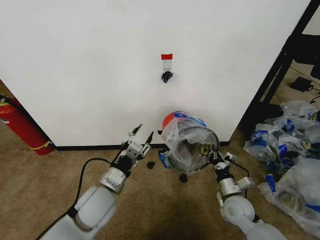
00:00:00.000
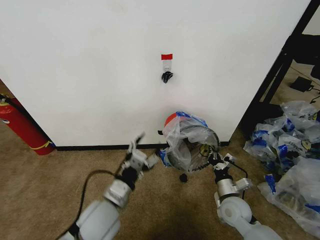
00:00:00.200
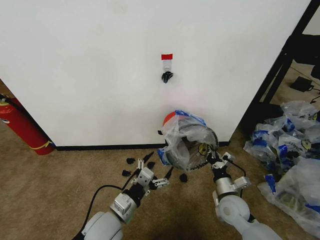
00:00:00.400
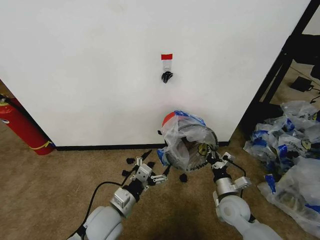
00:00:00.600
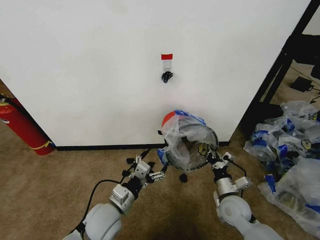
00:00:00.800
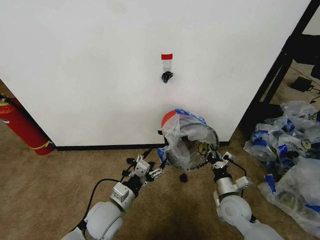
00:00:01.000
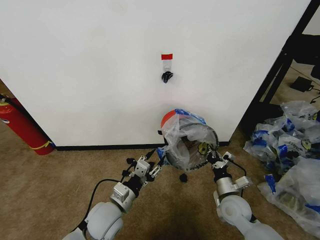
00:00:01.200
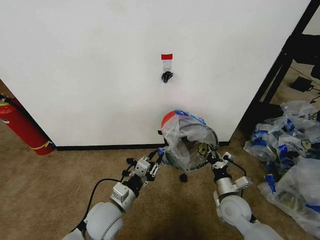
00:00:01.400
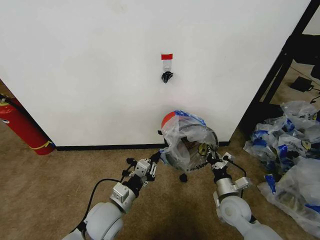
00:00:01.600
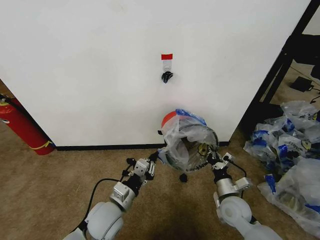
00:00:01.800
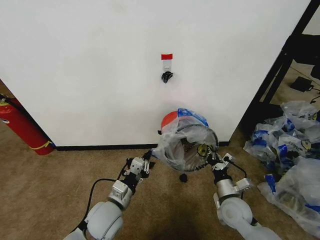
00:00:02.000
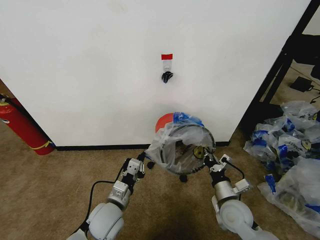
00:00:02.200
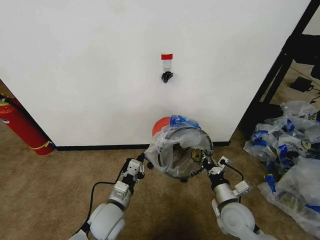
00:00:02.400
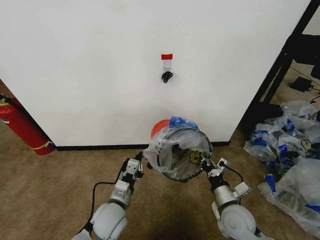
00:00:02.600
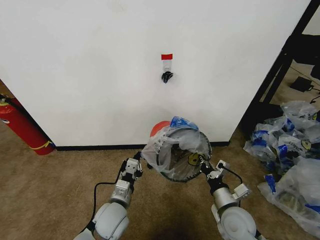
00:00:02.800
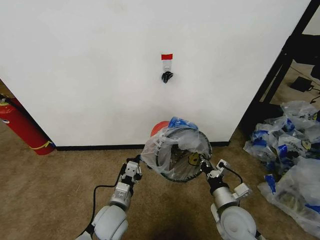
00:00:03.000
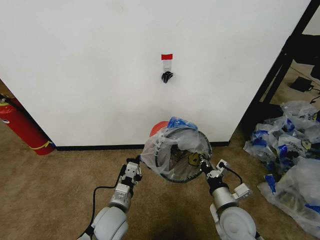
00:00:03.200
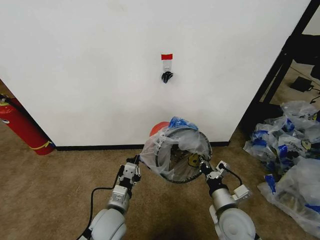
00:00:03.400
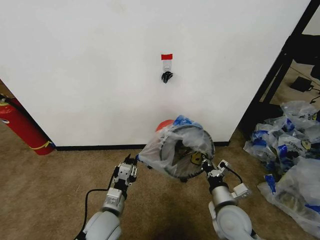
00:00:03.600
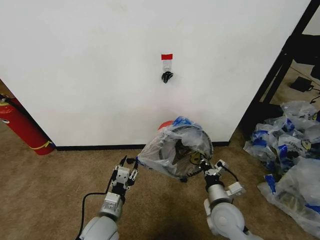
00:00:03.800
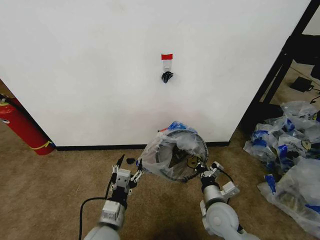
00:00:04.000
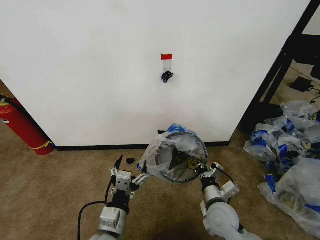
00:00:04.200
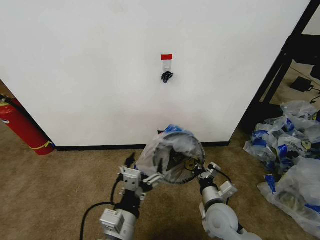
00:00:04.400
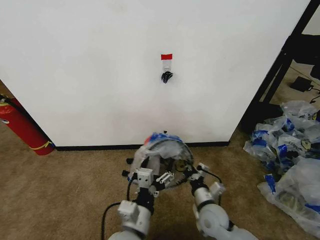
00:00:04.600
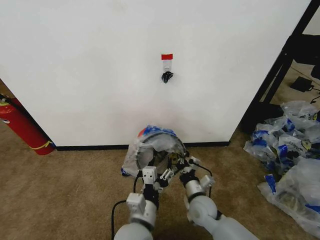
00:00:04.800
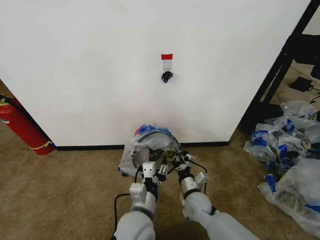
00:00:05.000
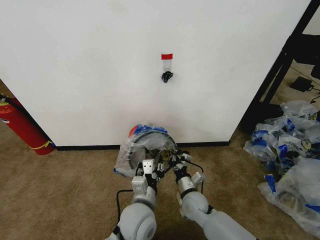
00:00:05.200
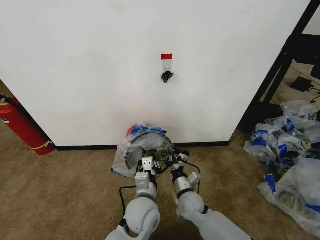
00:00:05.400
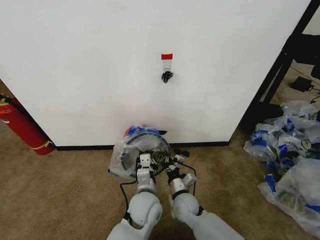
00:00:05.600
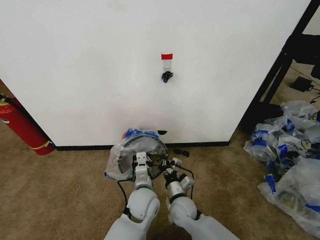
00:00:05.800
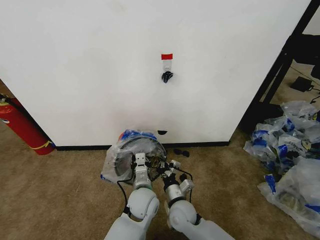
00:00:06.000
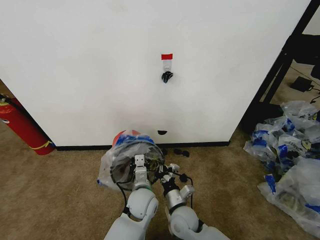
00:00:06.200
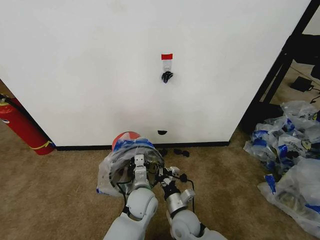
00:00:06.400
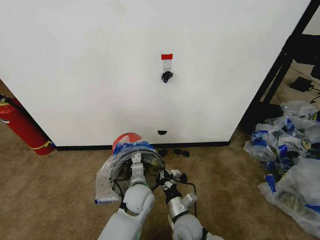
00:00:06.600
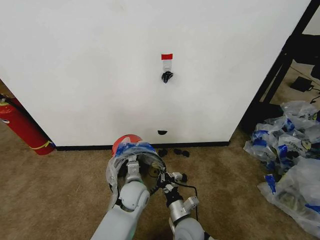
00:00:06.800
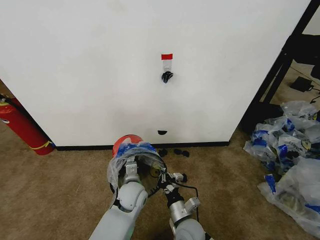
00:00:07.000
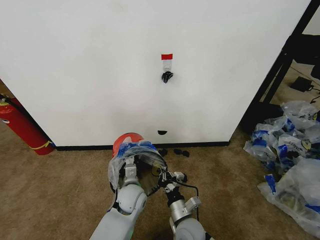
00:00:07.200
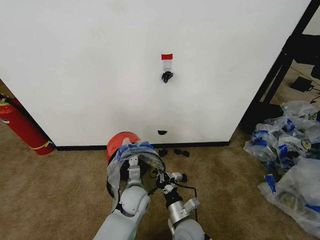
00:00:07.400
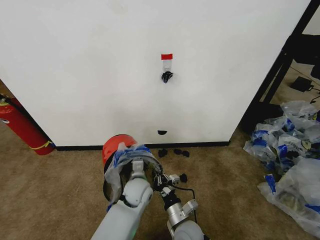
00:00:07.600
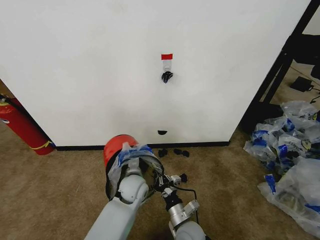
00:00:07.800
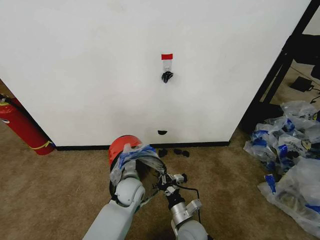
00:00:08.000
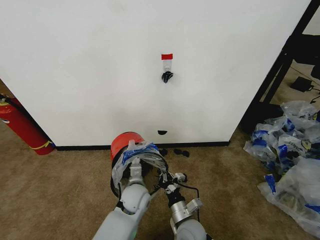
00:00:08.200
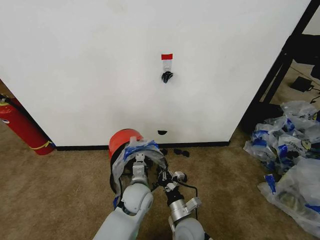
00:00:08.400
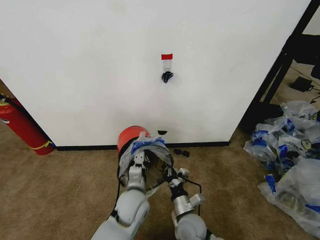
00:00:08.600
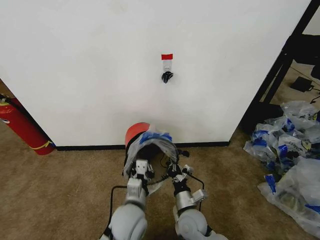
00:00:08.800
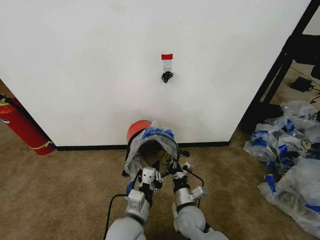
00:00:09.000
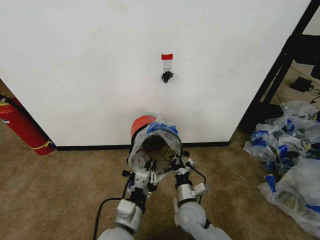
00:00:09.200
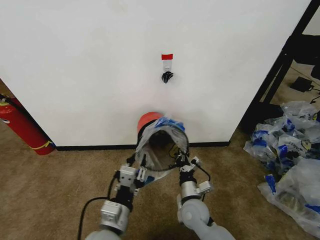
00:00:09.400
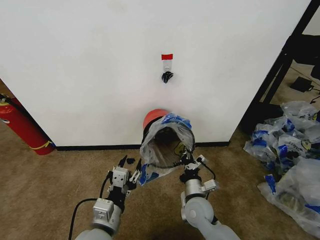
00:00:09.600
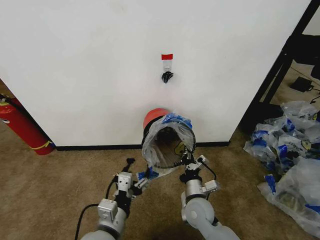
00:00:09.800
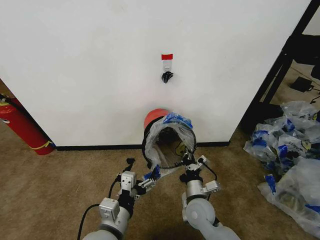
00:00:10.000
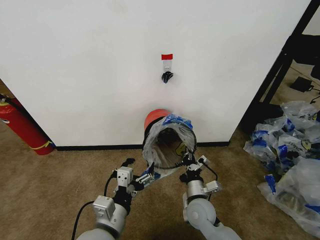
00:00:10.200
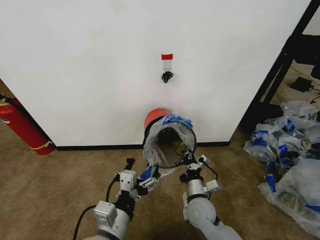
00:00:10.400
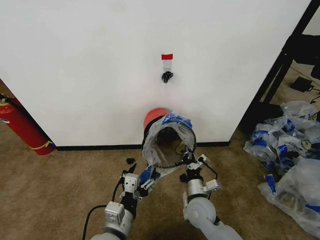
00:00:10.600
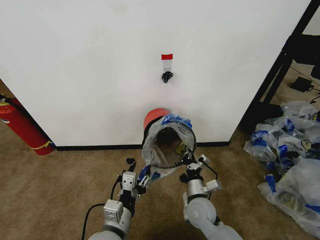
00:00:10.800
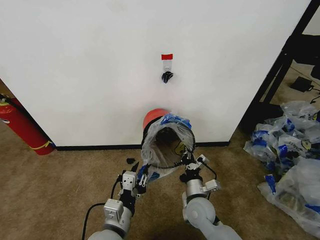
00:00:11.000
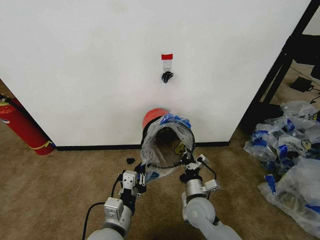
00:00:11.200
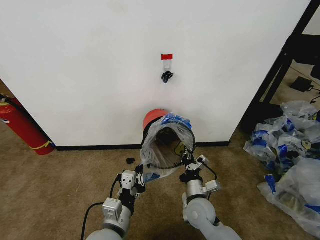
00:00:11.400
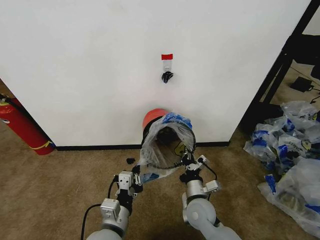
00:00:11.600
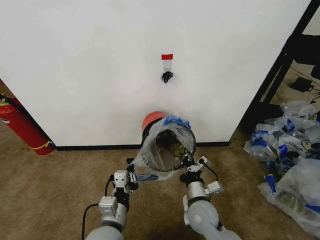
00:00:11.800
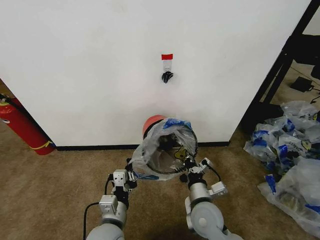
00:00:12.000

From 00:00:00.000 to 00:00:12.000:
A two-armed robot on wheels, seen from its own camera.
Task of the whole recording: Pick up the garbage bag from the wall and place it over the trash bin.
From 00:00:00.000 to 00:00:01.600: The left gripper goes approximately 5 cm downward, and closes.
From 00:00:01.600 to 00:00:03.000: The right gripper shifts by approximately 5 cm.
From 00:00:03.000 to 00:00:04.400: The left gripper moves backward and upward, about 15 cm, and opens its fingers.
From 00:00:04.400 to 00:00:06.000: The left gripper heads forward and downward, covering roughly 20 cm, and closes. The right gripper is displaced to the left by approximately 10 cm.
From 00:00:06.000 to 00:00:07.600: The right gripper is displaced backward by some 5 cm.
From 00:00:07.600 to 00:00:09.000: The left gripper is displaced backward and upward by roughly 15 cm.
From 00:00:09.000 to 00:00:10.400: The left gripper travels upward and backward by about 10 cm, and opens.
From 00:00:10.400 to 00:00:12.000: The right gripper shifts roughly 5 cm upward. The left gripper shifts approximately 5 cm downward, and closes its fingers.

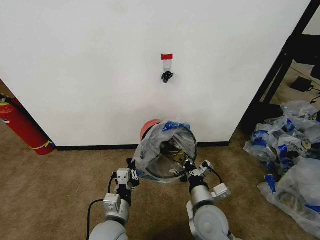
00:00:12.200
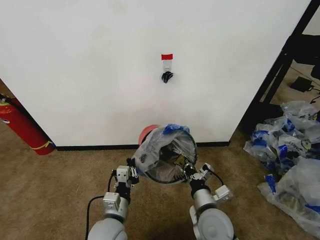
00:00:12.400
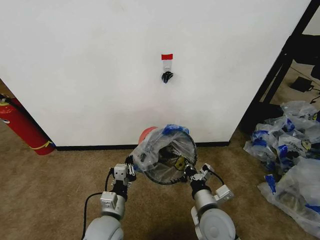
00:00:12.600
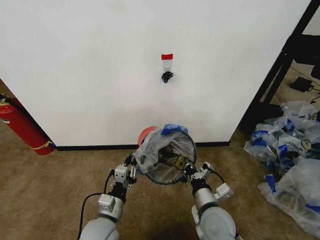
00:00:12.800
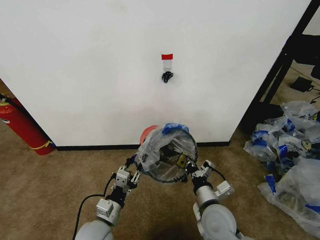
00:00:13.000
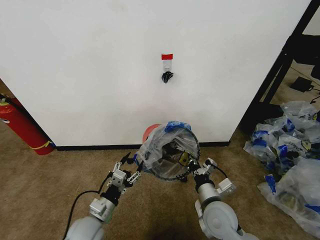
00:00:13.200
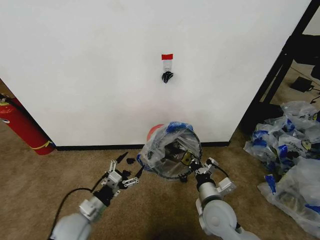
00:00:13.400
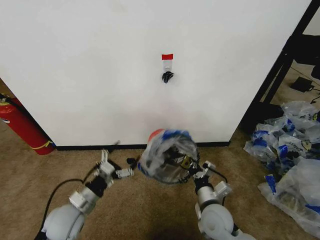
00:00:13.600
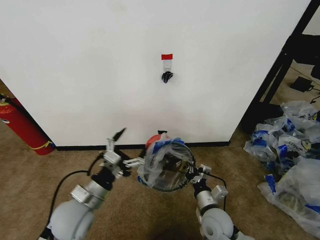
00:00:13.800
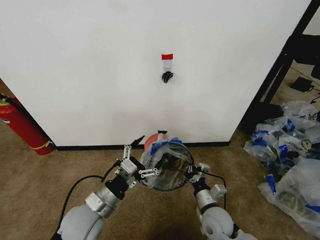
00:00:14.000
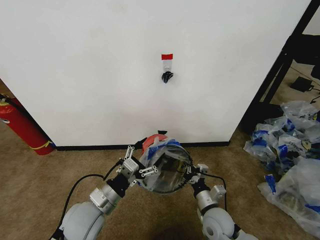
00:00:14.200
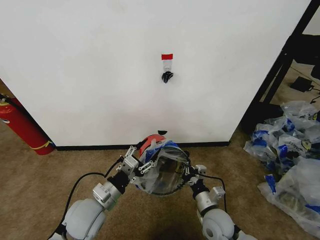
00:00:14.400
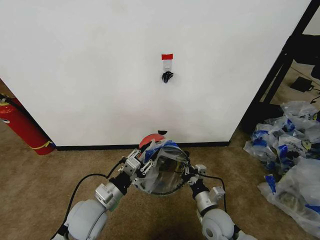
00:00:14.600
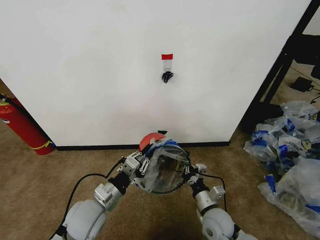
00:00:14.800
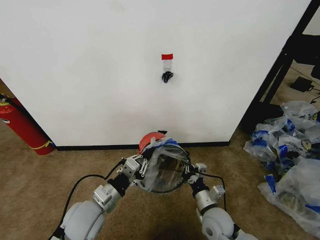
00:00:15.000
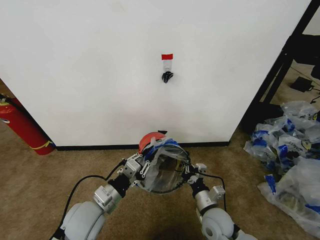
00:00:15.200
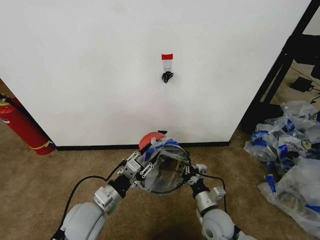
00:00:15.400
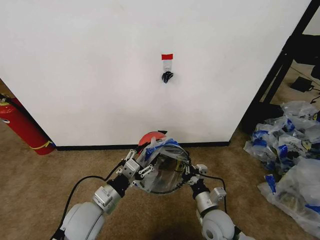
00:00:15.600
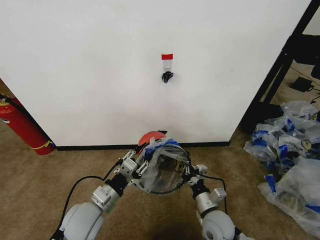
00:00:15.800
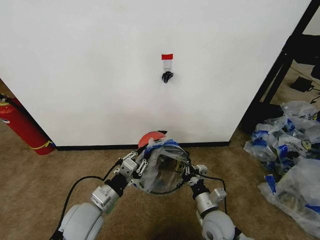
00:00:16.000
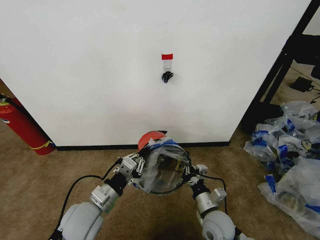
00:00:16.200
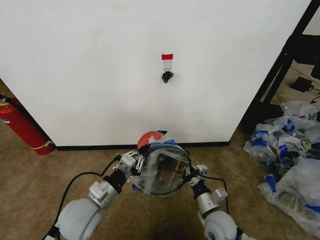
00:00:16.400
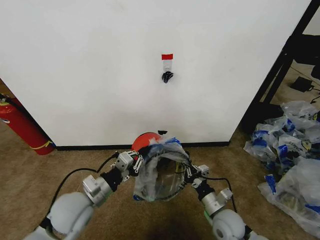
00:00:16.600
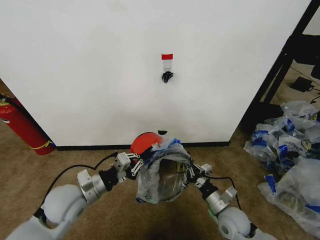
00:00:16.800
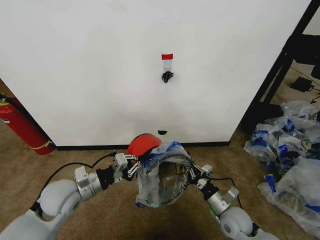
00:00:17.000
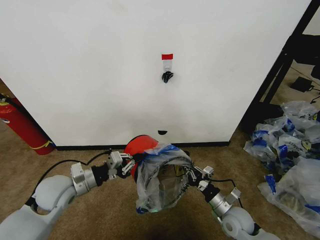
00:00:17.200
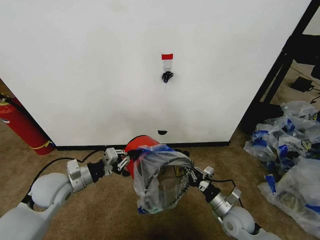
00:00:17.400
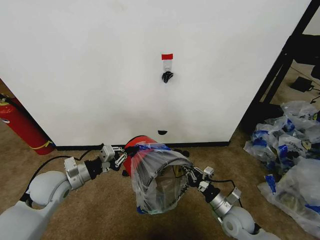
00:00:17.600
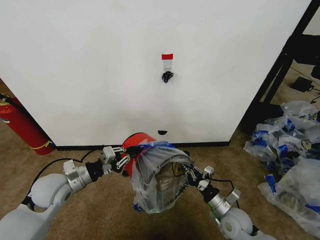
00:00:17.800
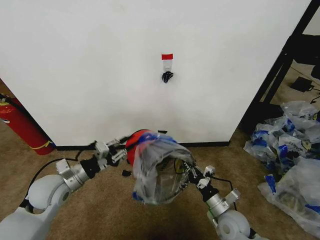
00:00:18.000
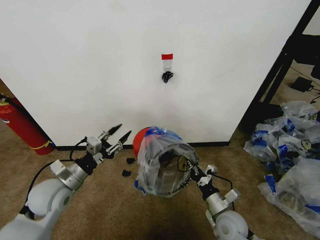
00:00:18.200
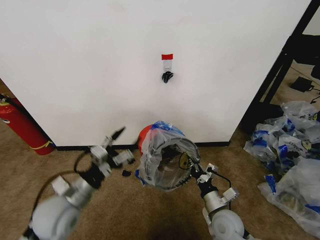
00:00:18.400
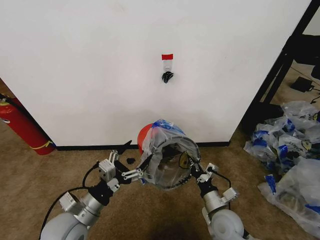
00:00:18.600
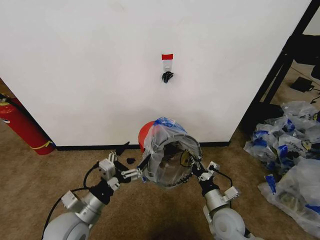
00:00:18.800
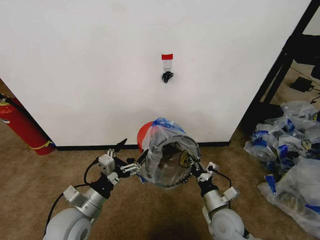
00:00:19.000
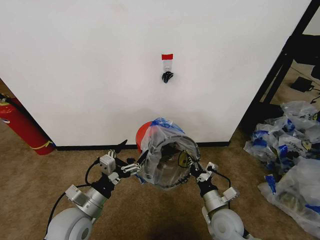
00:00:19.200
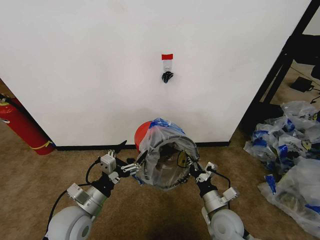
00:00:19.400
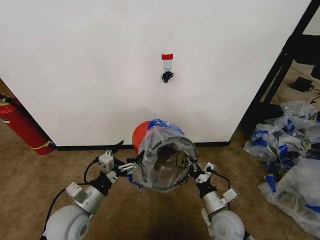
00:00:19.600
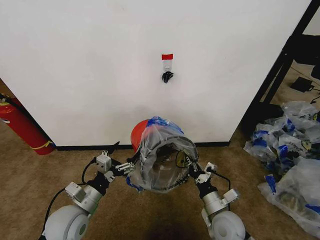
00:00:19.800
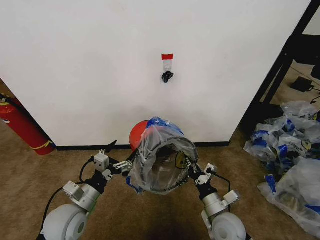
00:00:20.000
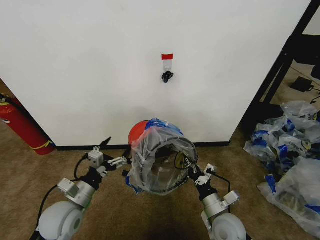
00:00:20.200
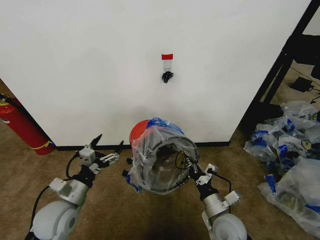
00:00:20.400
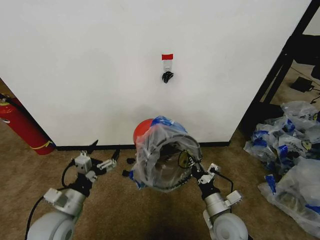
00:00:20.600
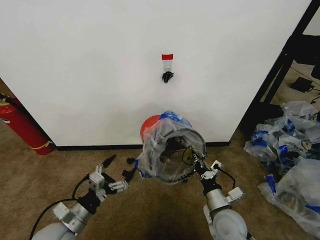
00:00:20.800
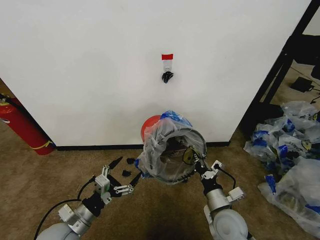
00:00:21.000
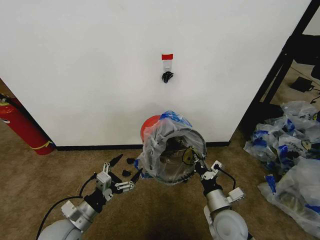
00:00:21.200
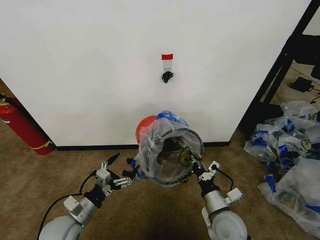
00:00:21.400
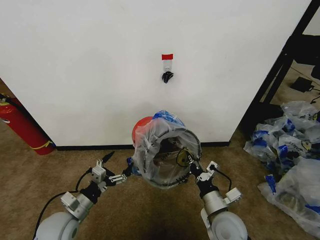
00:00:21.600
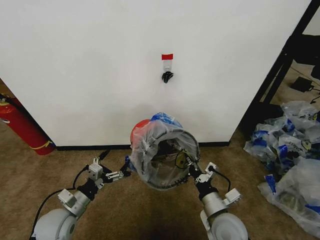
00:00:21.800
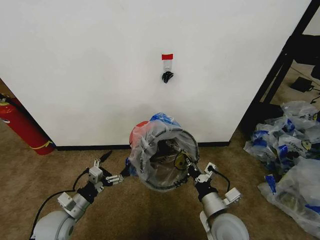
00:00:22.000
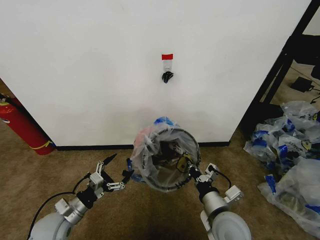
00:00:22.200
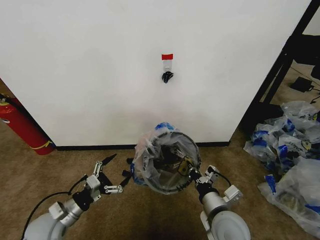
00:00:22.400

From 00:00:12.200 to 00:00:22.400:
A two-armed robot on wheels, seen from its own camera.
Task of the whole recording: Pick up the garbage bag from the wall and place it over the trash bin.
From 00:00:12.200 to 00:00:13.600: The right gripper changes place by approximately 5 cm. The left gripper shifts approximately 15 cm to the left, and opens up.
From 00:00:13.600 to 00:00:15.200: The left gripper goes some 5 cm to the right, and closes its fingers.
From 00:00:15.200 to 00:00:16.600: The left gripper opens, then closes once more.
From 00:00:16.600 to 00:00:18.000: The left gripper travels to the left and forward by approximately 10 cm.
From 00:00:18.000 to 00:00:19.400: The left gripper shifts approximately 10 cm to the right and backward, and opens.
From 00:00:19.400 to 00:00:21.000: The left gripper ends up roughly 5 cm from where it was.
From 00:00:21.000 to 00:00:22.400: The right gripper shifts approximately 5 cm upward, while the left gripper goes some 5 cm to the left.
